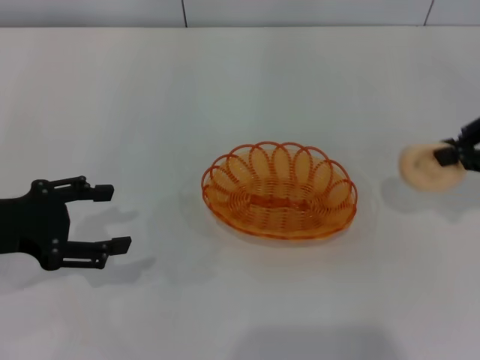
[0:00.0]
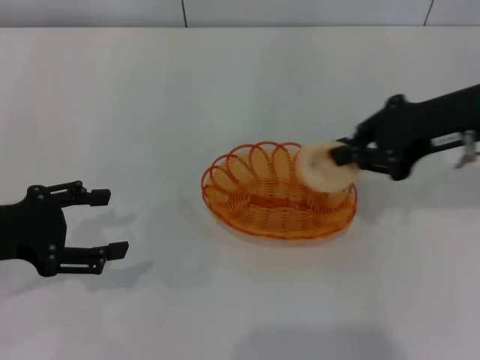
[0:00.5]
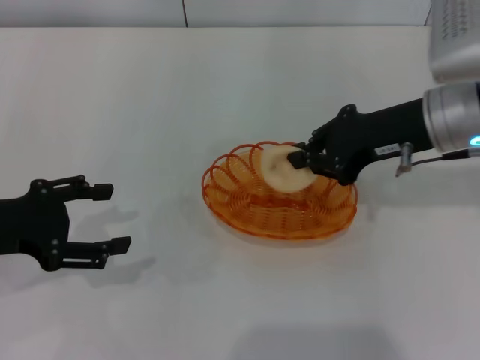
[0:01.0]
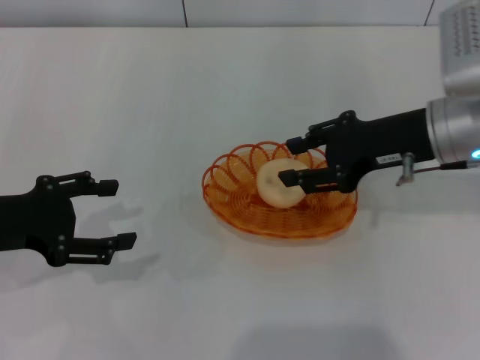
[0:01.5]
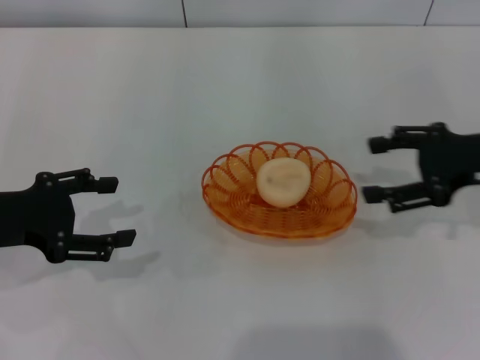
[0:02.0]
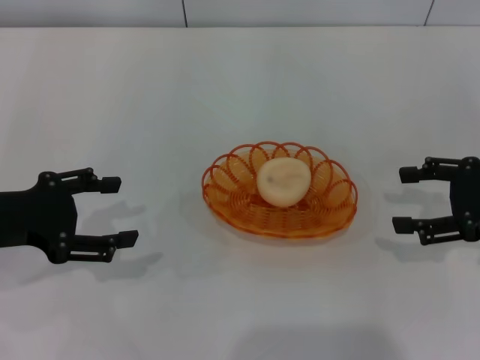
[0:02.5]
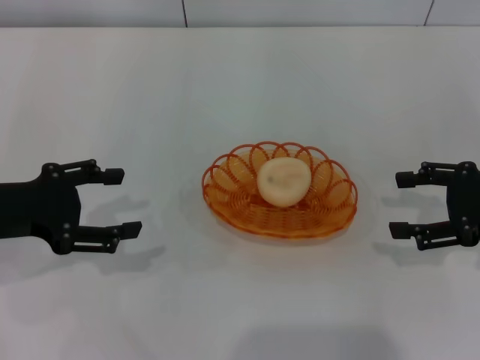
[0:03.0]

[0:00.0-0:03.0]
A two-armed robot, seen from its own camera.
Step, 0:00.5 to 0:02.5: Place the egg yolk pastry into the basket with the right gripper.
0:00.0 to 0:01.5: The right gripper moves to the left, some 10 cm, and opens.
0:01.5 to 0:03.0: The right gripper travels to the right by some 10 cm, and opens.
